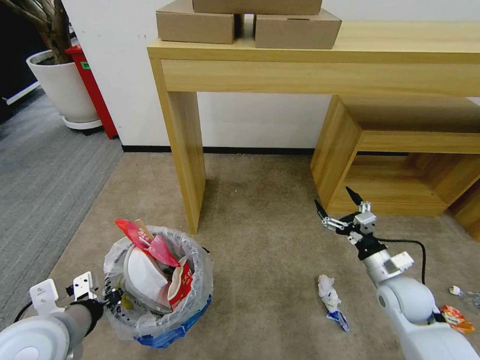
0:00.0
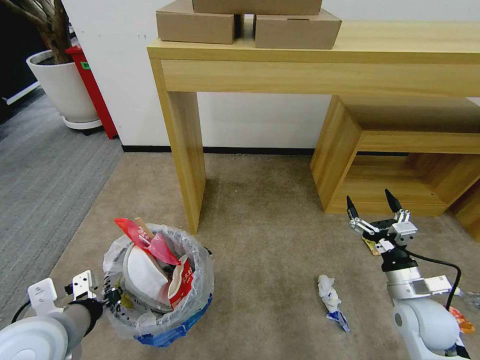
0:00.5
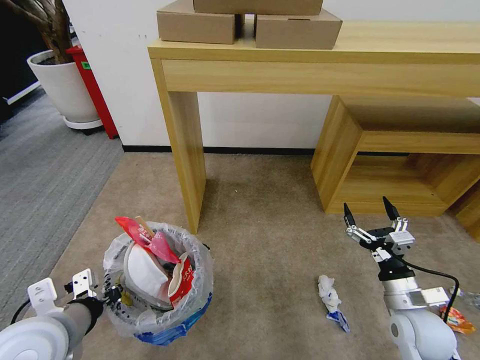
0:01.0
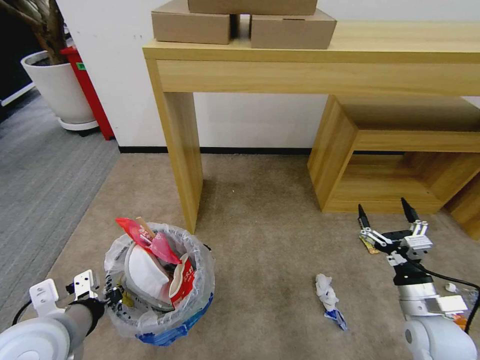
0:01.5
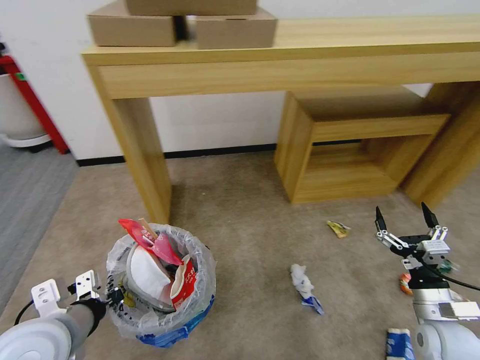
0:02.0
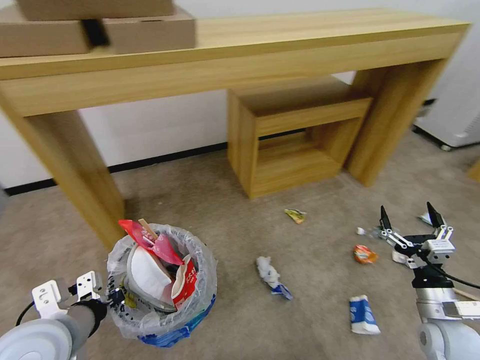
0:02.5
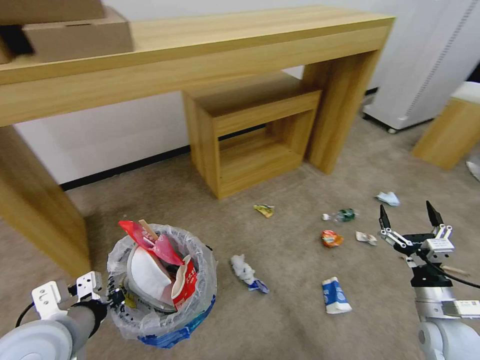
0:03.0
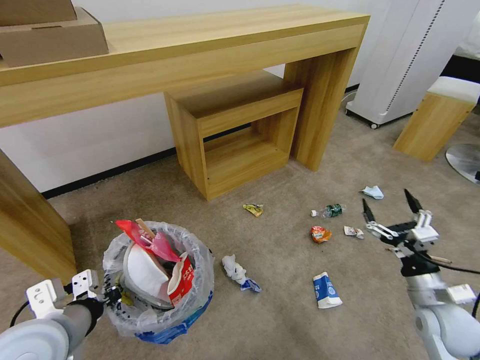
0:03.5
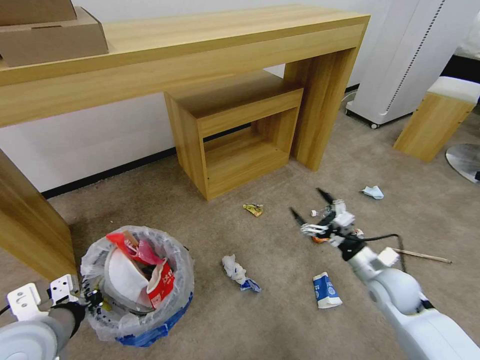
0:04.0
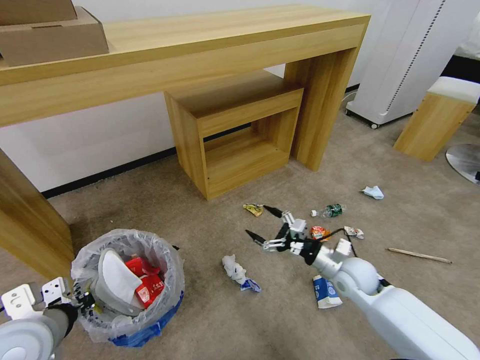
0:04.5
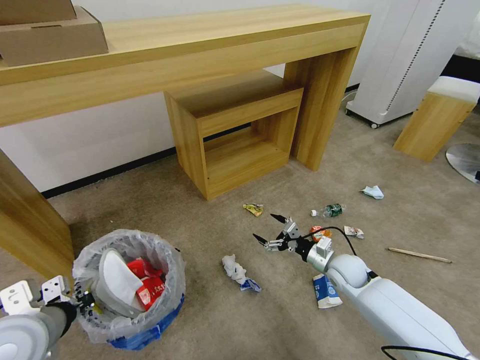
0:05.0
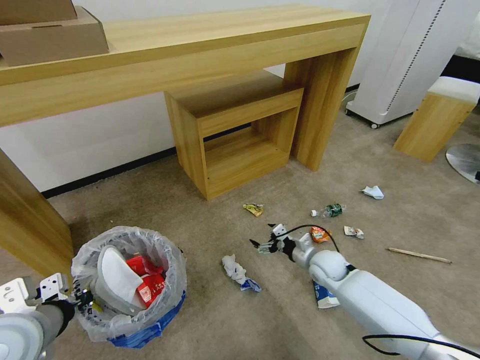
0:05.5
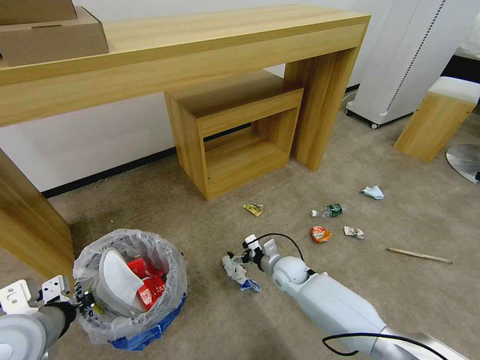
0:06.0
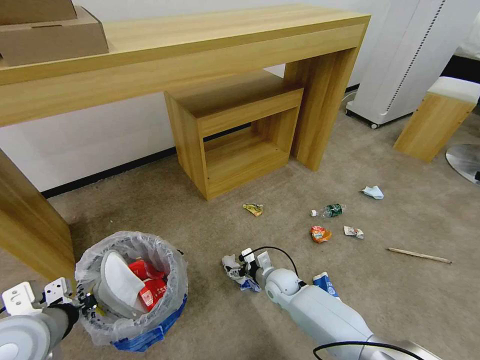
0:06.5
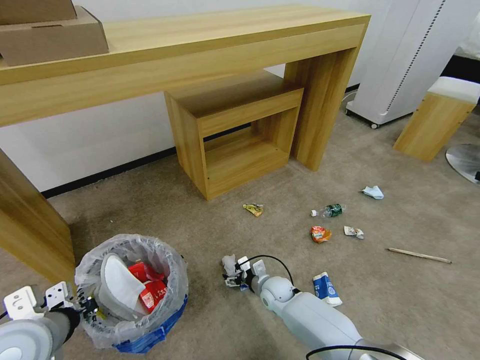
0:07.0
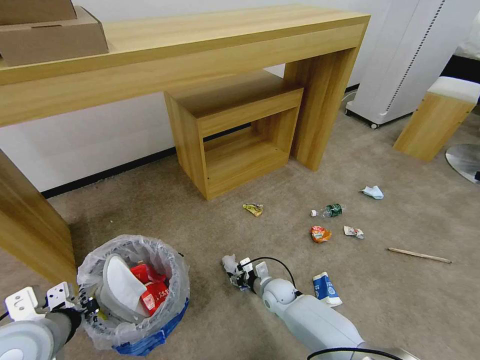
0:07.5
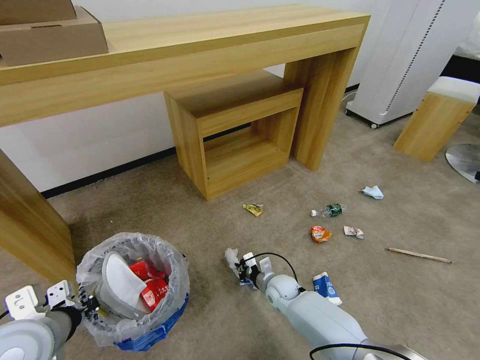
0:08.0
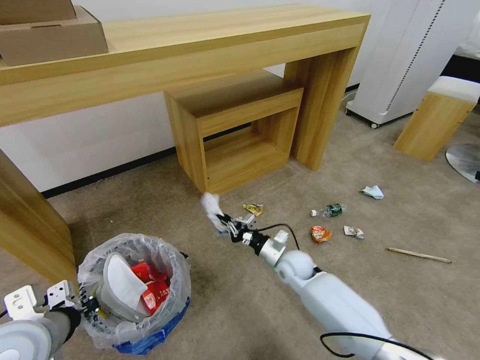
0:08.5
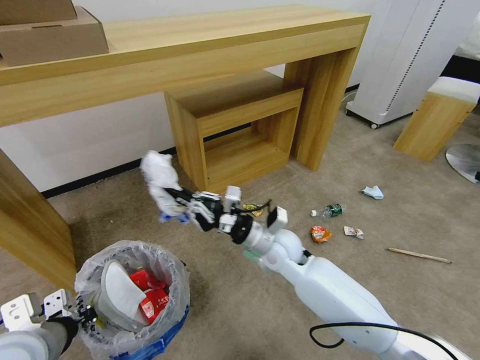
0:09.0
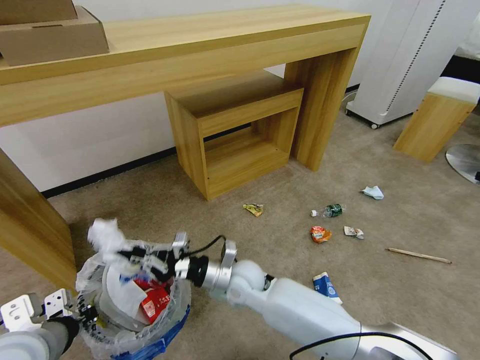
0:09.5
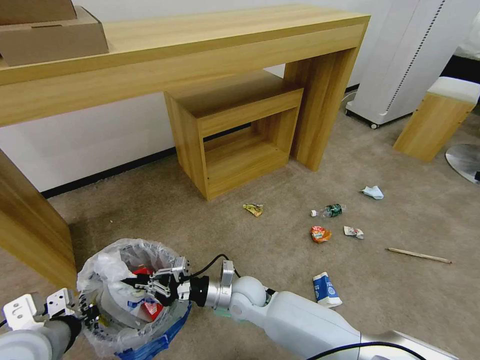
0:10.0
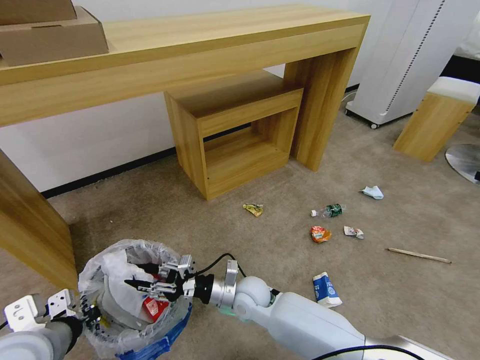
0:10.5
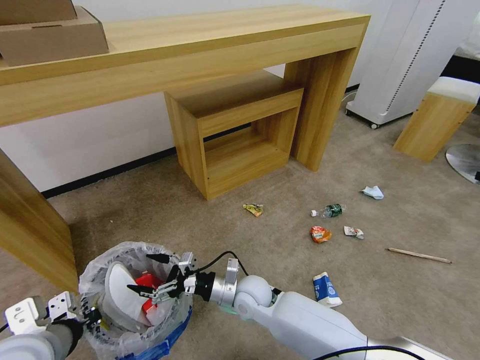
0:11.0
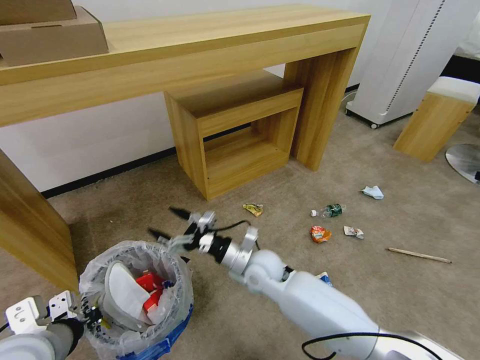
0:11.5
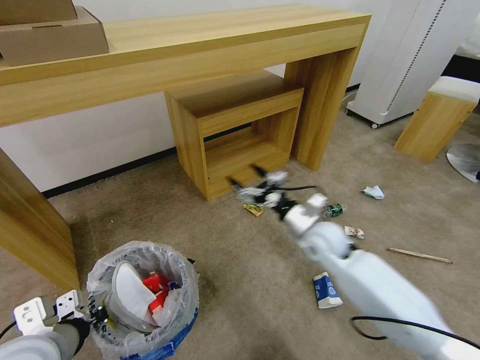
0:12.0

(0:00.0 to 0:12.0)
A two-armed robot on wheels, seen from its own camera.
Task of the whole recording: Pick up the trash bin and place the garbage on the floor into it.
0:00.0 - 0:02.0: The right gripper travels backward by some 10 cm.
0:02.0 - 0:04.0: The right gripper shifts some 10 cm forward.
0:04.0 - 0:06.0: The right gripper goes approximately 25 cm to the left, downward and forward.
0:06.0 - 0:08.0: The right gripper moves downward, approximately 5 cm, and closes up.
0:08.0 - 0:10.0: The right gripper moves upward, to the left and backward, roughly 20 cm.
0:10.0 - 0:12.0: The right gripper goes some 25 cm to the right, upward and forward, and opens its fingers.

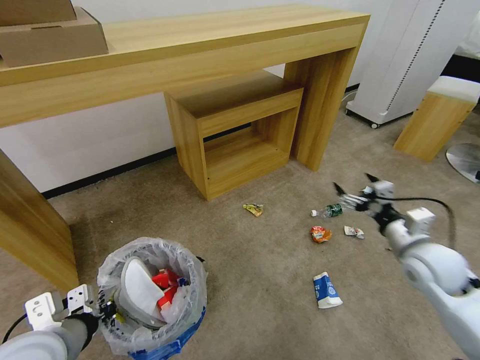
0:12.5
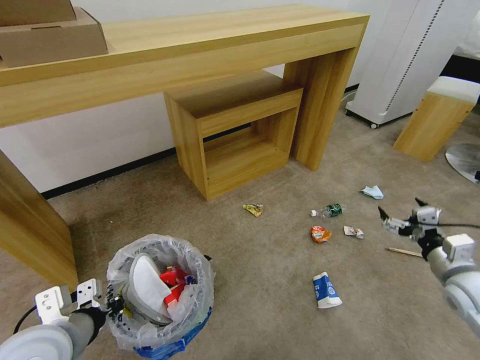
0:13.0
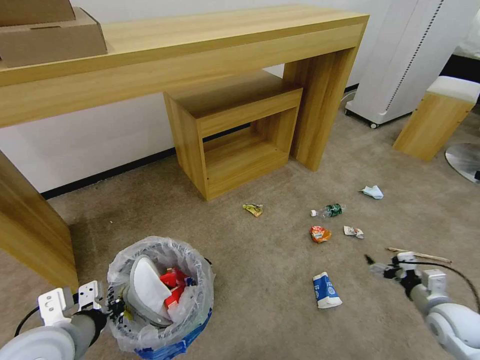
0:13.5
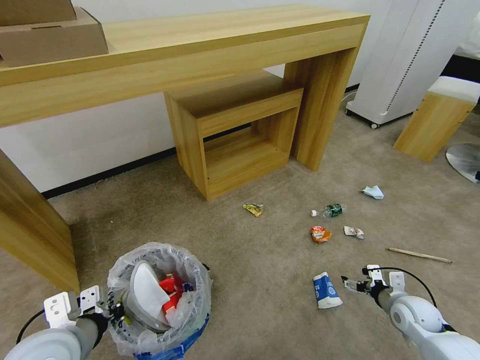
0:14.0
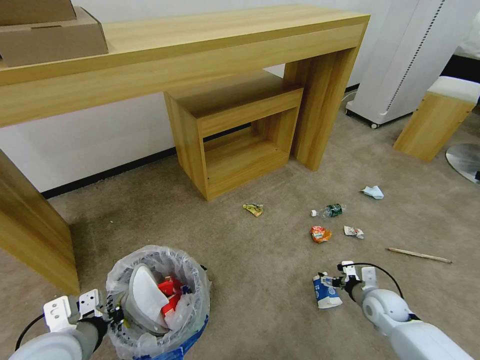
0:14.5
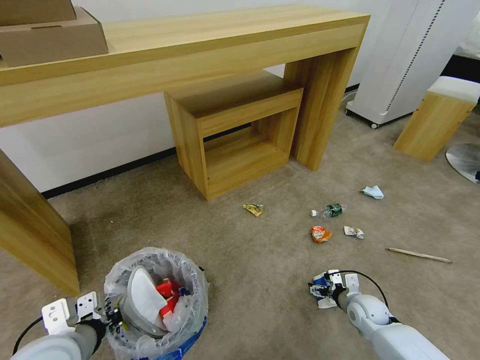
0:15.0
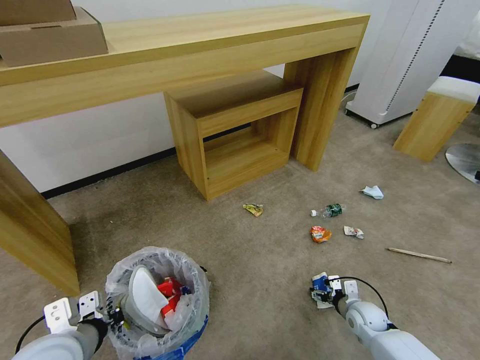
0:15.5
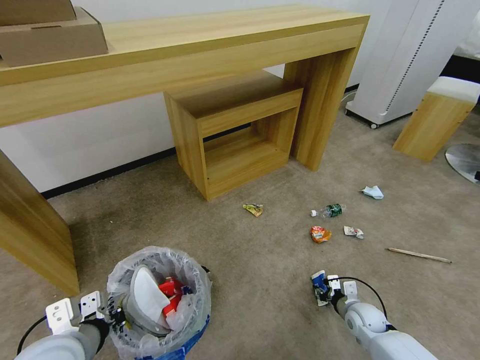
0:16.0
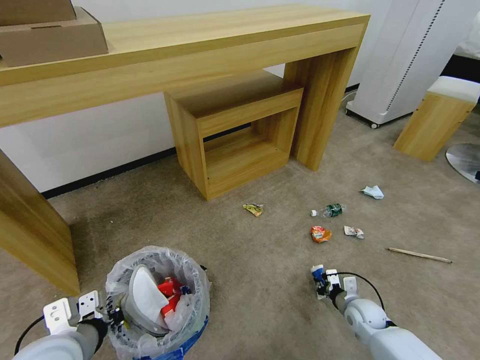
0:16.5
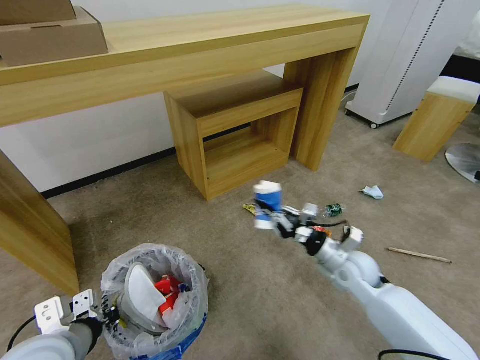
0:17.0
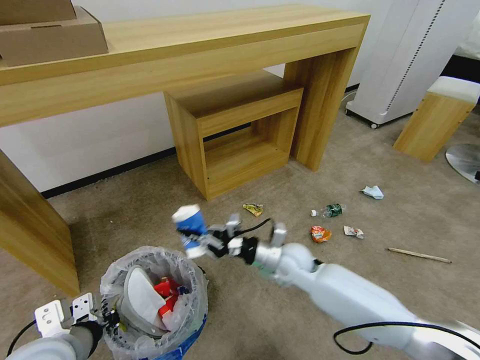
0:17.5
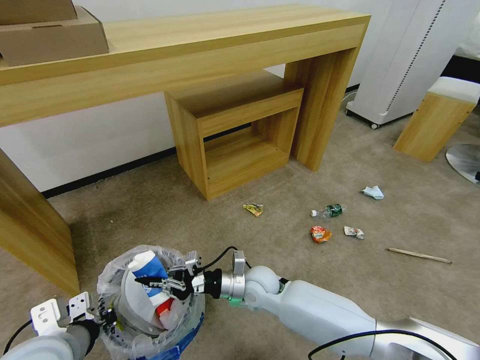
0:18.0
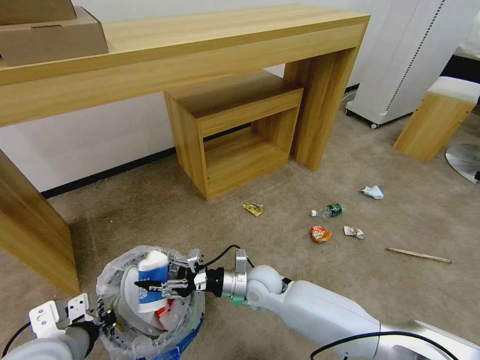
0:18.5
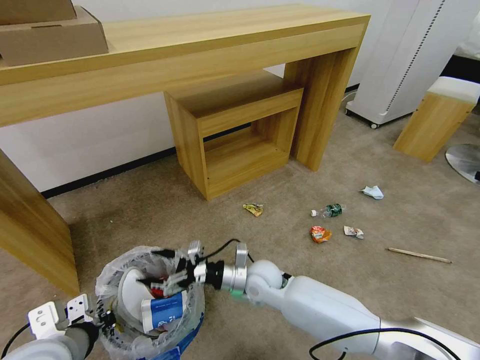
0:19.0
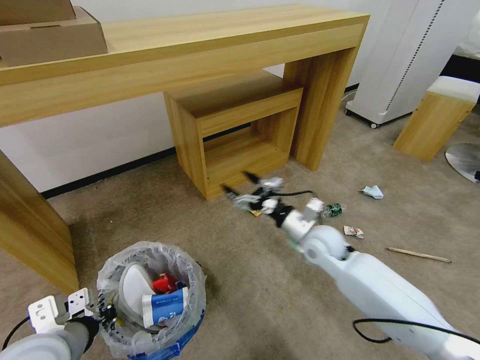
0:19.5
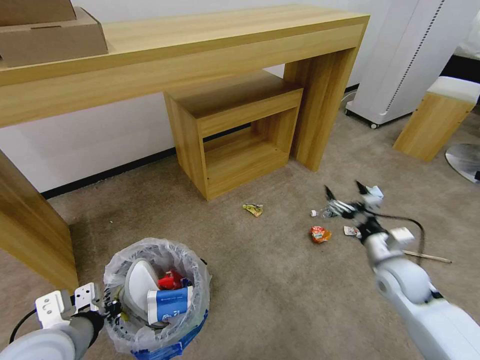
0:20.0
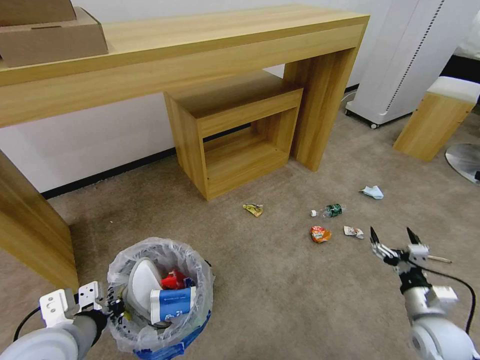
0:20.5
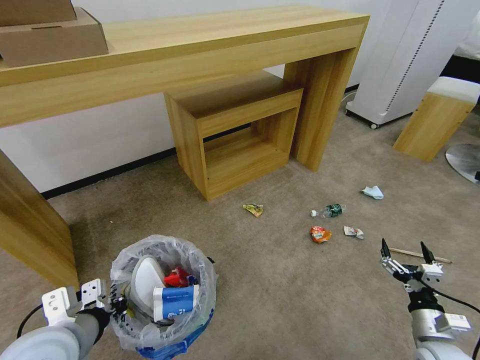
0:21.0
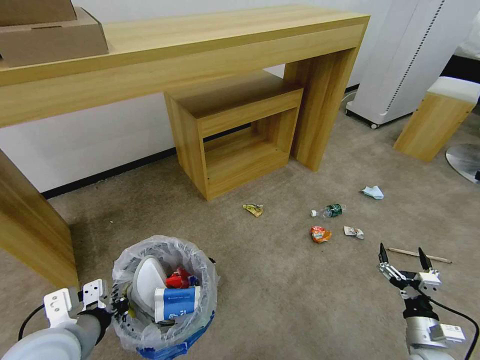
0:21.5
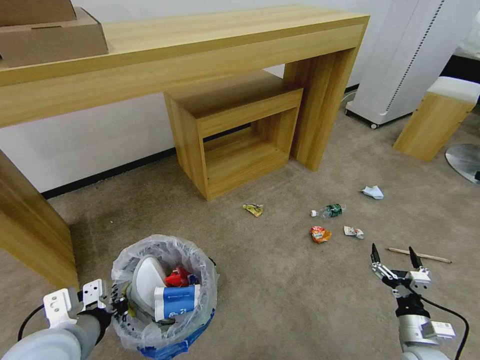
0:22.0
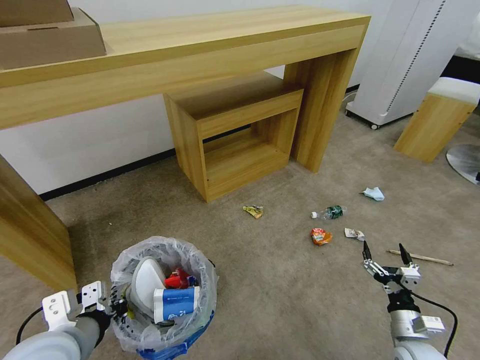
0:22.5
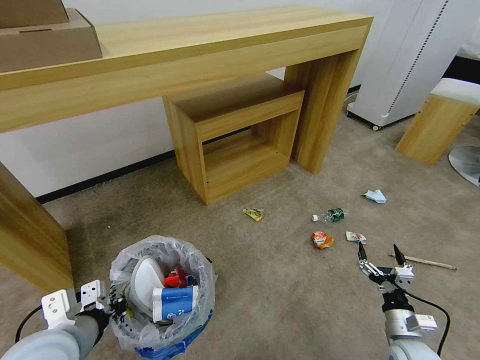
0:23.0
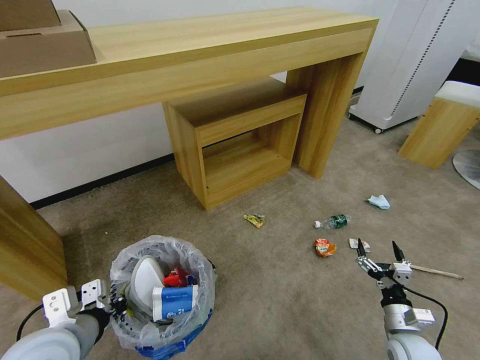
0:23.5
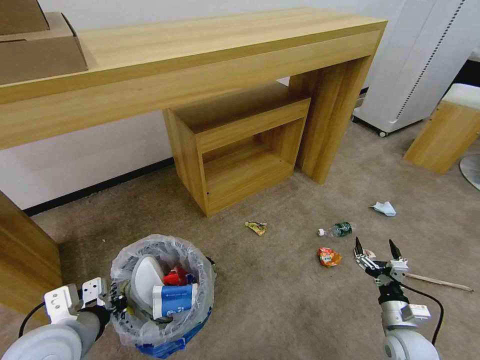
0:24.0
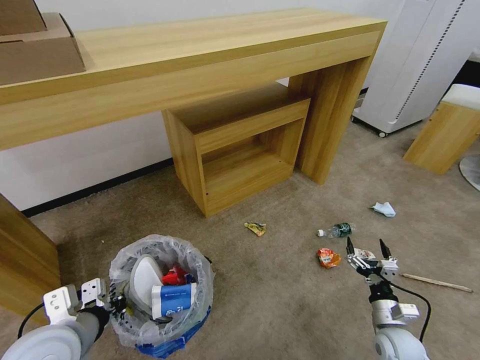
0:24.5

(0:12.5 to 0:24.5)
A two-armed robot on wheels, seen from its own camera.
Task of the whole recording: Pick up the trash bin and place the garbage on the floor into it.
0:12.5 - 0:14.5: The right gripper travels downward by some 20 cm.
0:14.5 - 0:16.5: The right gripper heads downward, covering approximately 5 cm, and closes up.
0:16.5 - 0:18.5: The right gripper heads to the left and upward, covering roughly 30 cm, and opens.
0:18.5 - 0:20.5: The right gripper goes about 35 cm to the right, and opens.
0:20.5 - 0:22.5: The right gripper travels downward by approximately 5 cm.

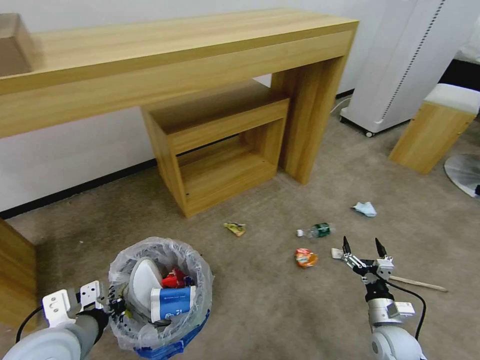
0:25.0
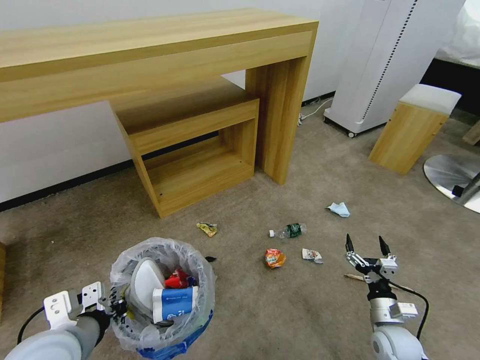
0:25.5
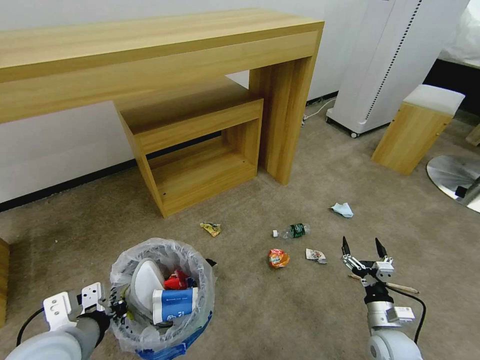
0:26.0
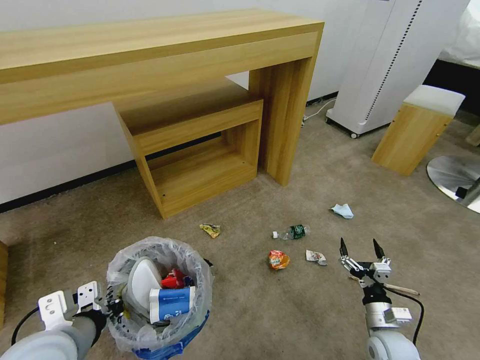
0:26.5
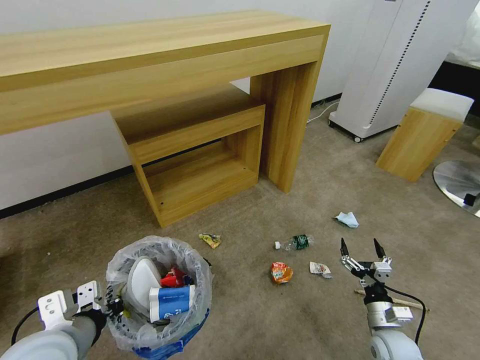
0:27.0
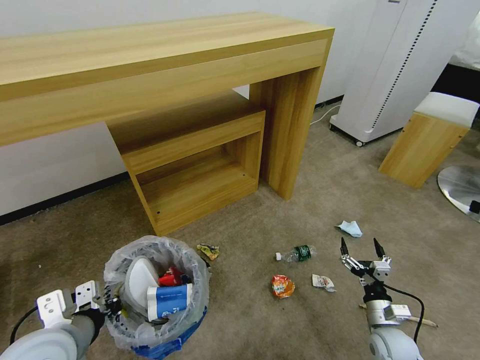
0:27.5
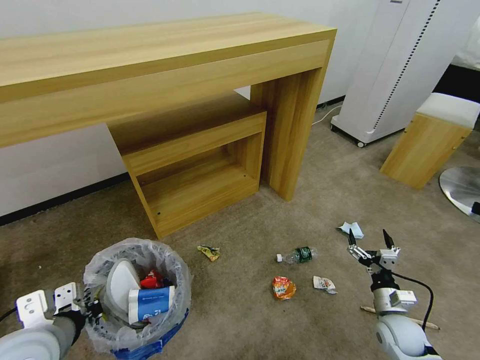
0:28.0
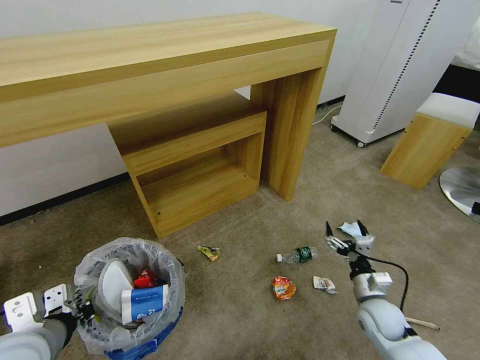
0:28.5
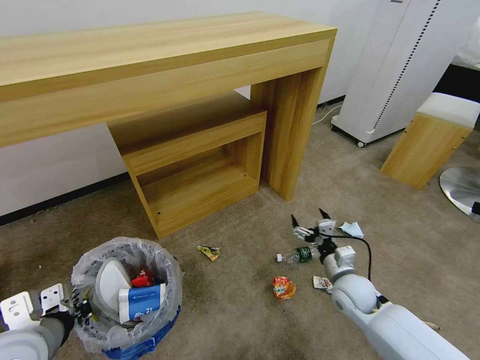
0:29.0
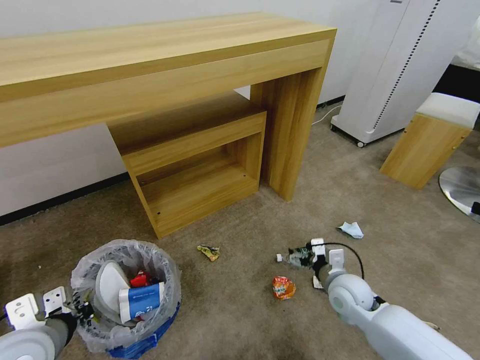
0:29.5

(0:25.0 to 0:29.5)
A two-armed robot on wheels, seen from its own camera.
Task of the whole recording: Pick up the trash bin and place the garbage on the floor into it.
0:25.0 - 0:27.0: Both grippers stay put.
0:27.0 - 0:29.5: The right gripper moves forward, to the left and upward, approximately 15 cm.
